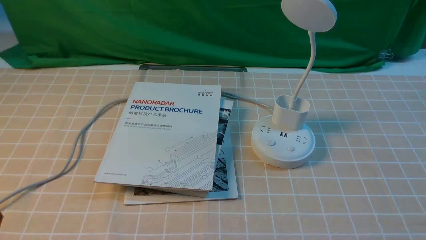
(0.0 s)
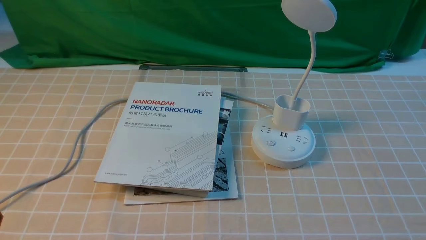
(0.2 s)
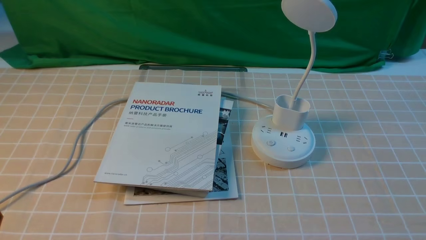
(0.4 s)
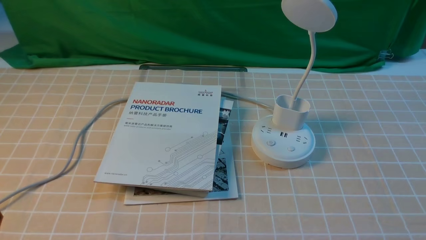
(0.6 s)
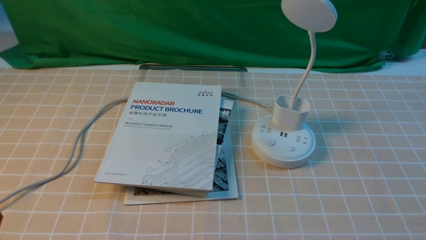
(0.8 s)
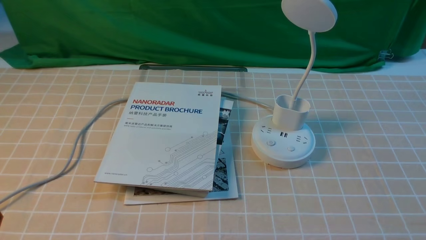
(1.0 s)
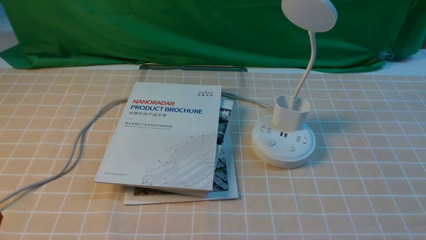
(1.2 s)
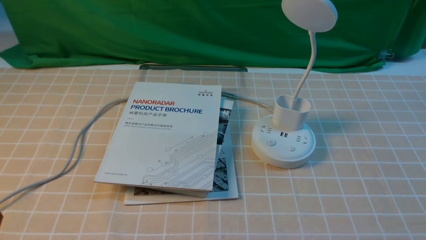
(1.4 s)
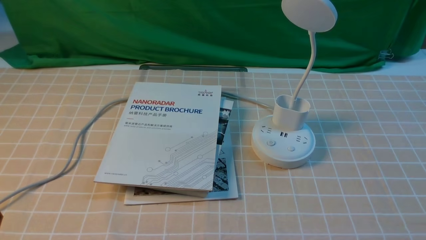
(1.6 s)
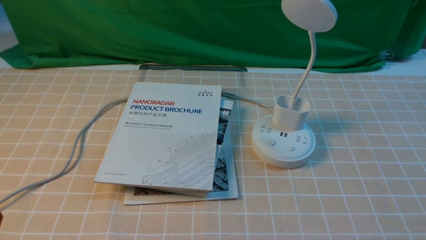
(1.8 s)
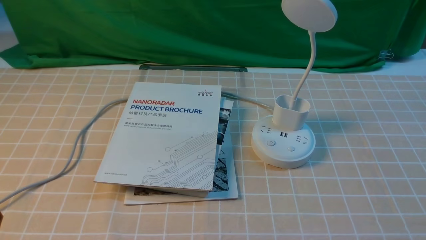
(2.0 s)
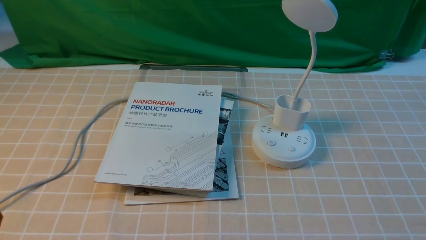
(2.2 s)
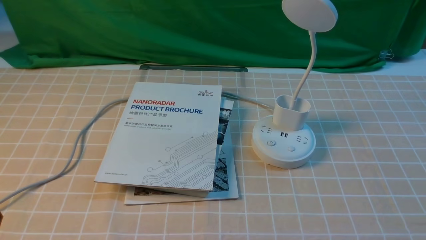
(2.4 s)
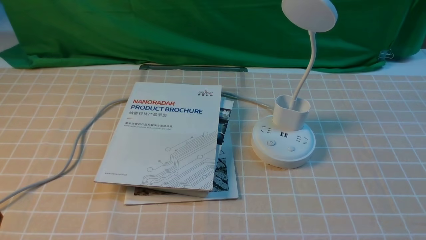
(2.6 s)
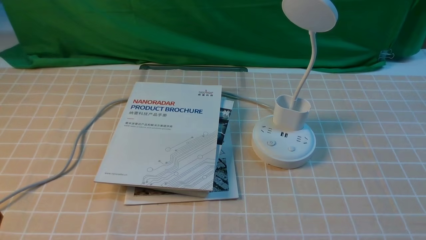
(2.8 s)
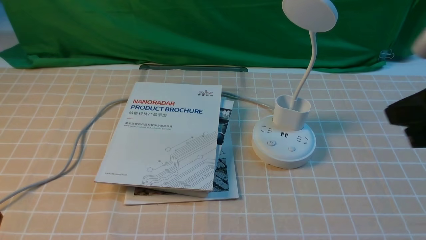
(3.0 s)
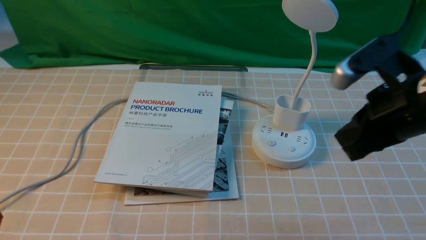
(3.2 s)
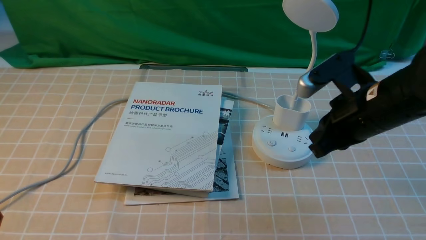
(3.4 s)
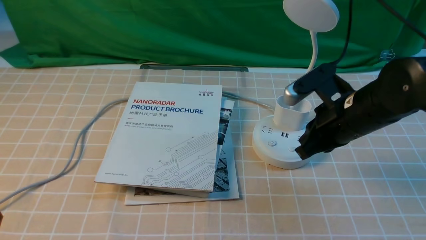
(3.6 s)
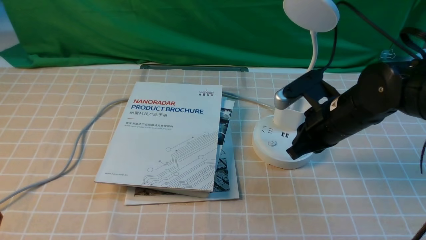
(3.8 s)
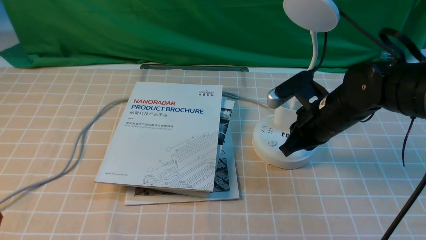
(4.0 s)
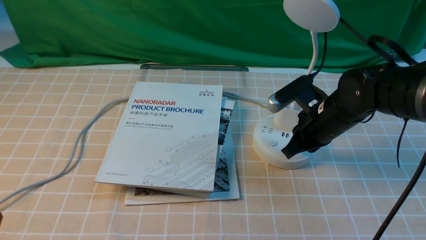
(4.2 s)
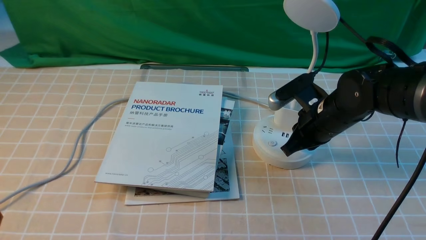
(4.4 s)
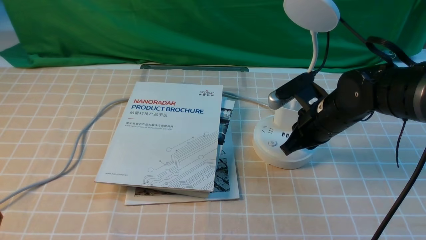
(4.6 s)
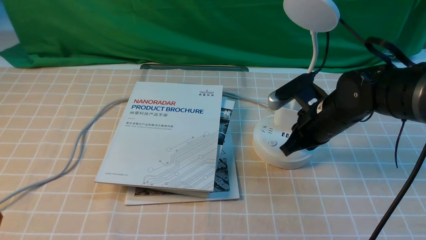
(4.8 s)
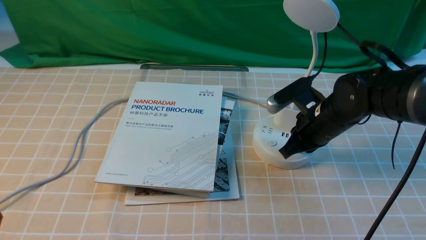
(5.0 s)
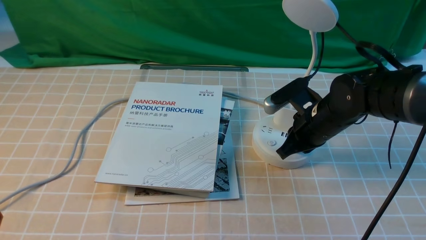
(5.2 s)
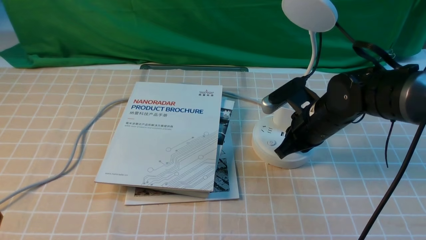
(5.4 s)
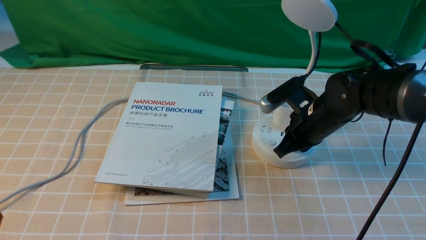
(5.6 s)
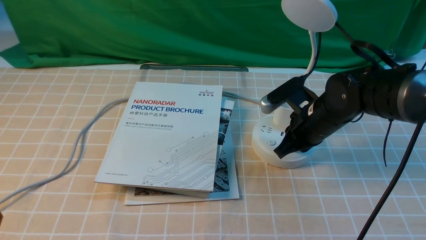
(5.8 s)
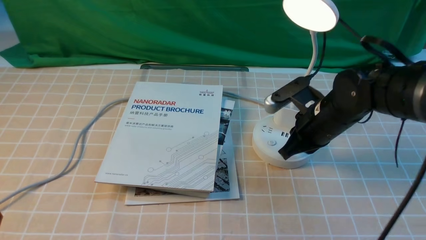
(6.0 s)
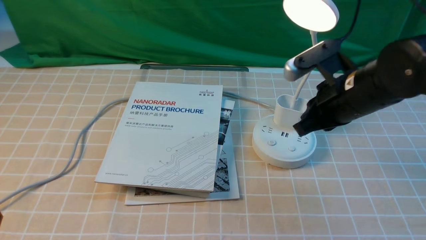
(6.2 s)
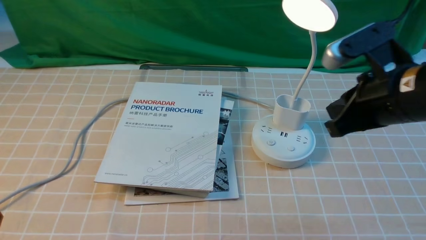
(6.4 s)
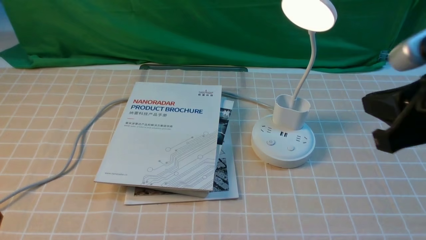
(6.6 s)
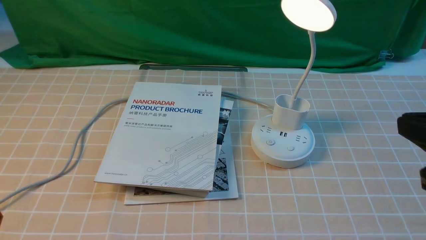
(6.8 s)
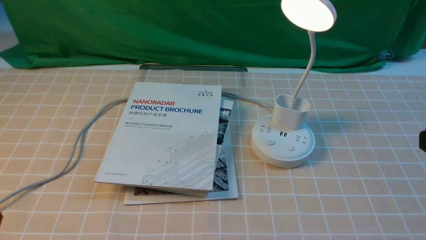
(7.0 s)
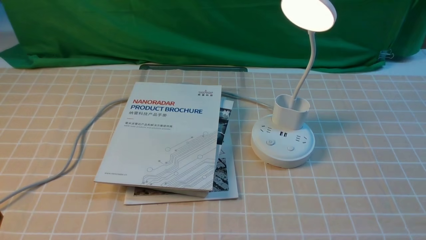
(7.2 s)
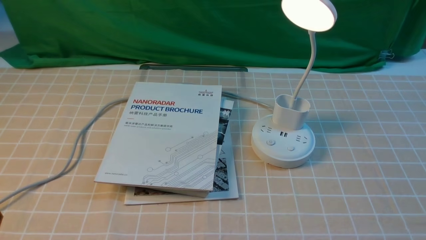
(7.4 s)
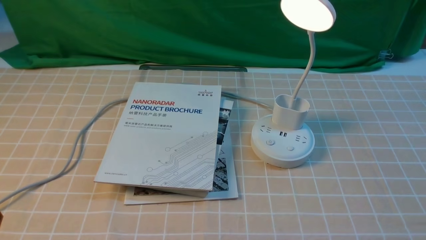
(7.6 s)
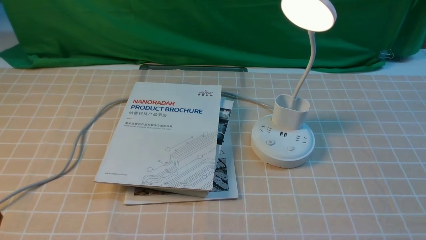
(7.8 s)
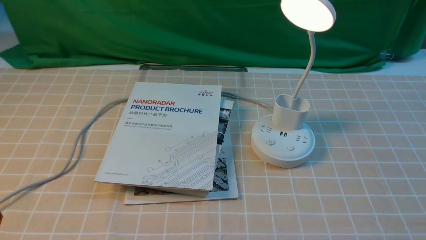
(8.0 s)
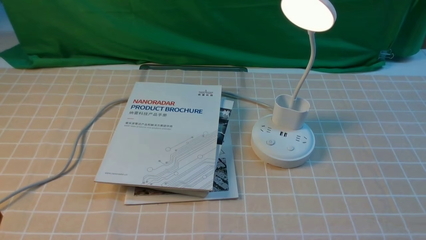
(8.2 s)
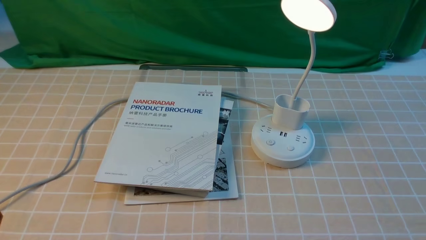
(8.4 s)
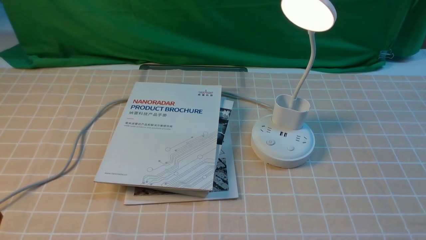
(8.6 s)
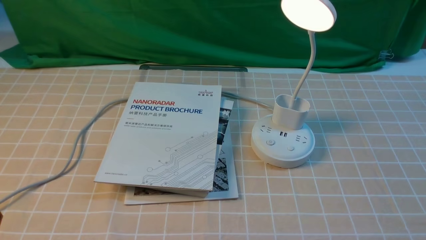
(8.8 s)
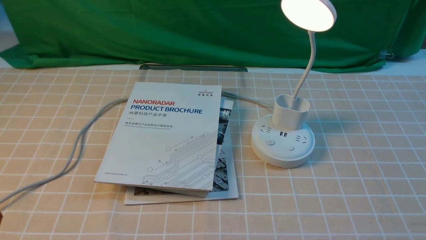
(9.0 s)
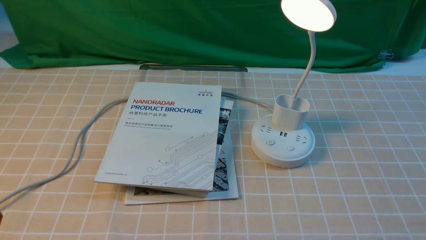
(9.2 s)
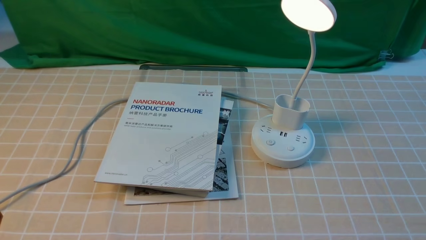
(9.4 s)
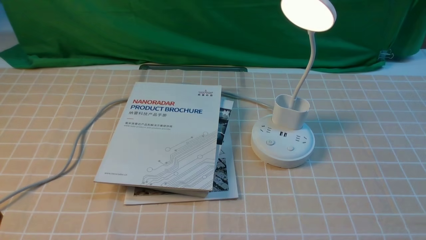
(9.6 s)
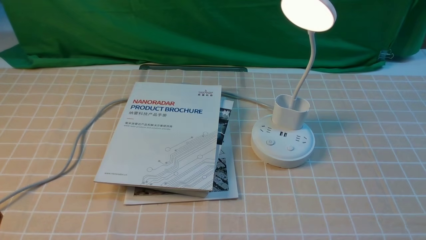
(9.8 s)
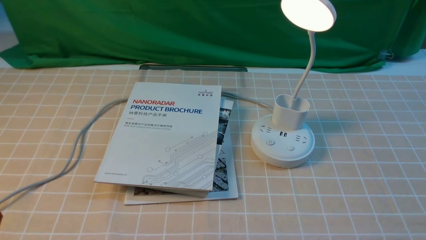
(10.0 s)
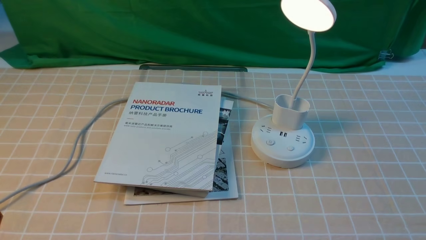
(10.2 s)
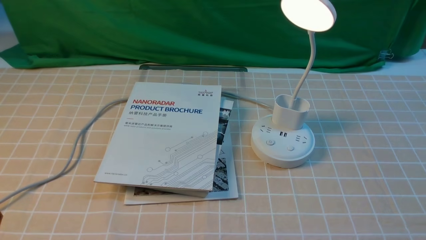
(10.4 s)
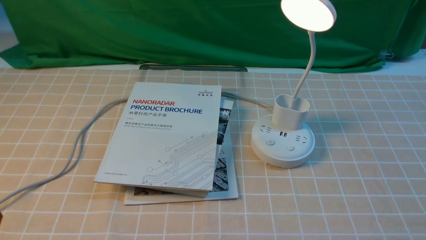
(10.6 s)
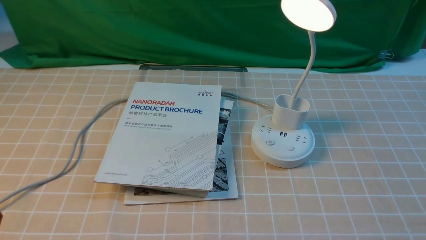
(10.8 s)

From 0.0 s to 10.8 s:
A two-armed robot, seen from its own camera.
Step, from 0.0 s to 6.2 s: use the right arm to press the button switch on the lamp holder.
From 1.6 s to 3.0 s: The right gripper heads upward, forward and to the left, covering approximately 25 cm, and closes.
From 3.0 s to 4.6 s: The right gripper moves downward, forward and to the left, roughly 25 cm.
From 4.6 s to 6.2 s: The right gripper travels upward and backward by about 10 cm.
From 6.2 s to 7.8 s: The right gripper goes approximately 25 cm backward and to the right, and opens its fingers.
From 9.2 s to 10.8 s: Both grippers stay put.
